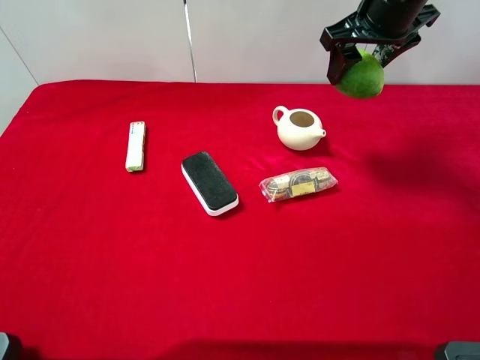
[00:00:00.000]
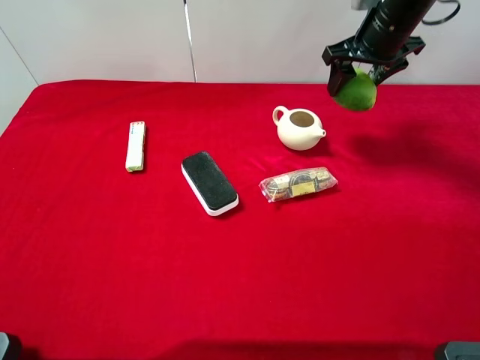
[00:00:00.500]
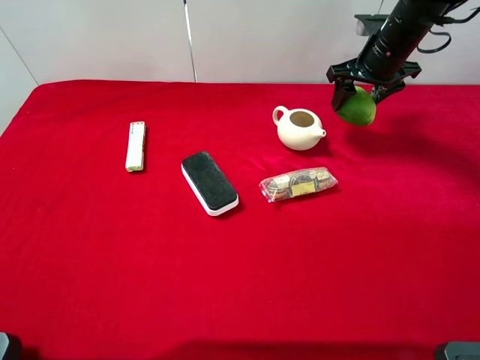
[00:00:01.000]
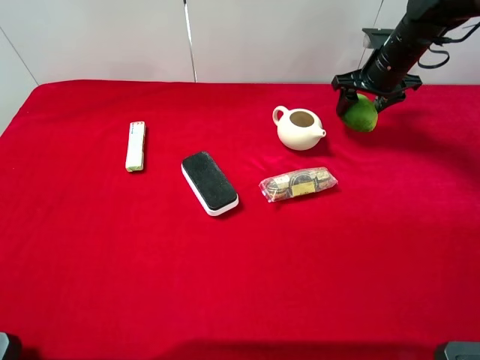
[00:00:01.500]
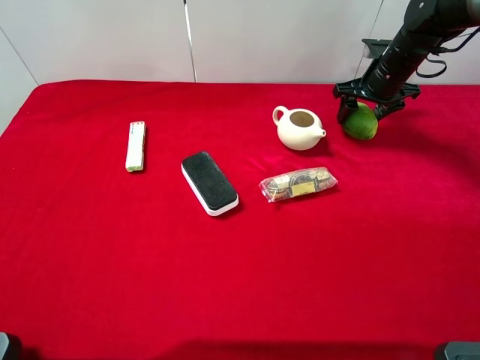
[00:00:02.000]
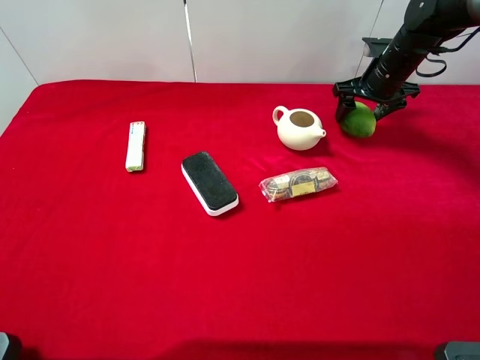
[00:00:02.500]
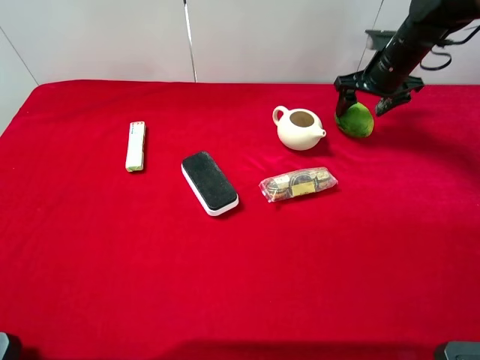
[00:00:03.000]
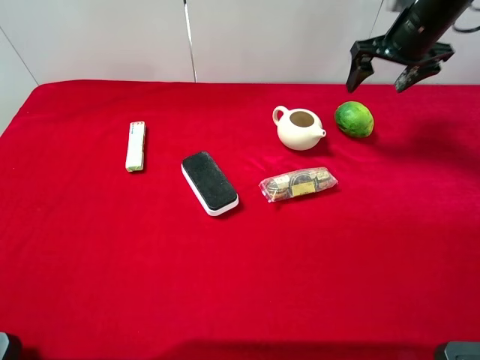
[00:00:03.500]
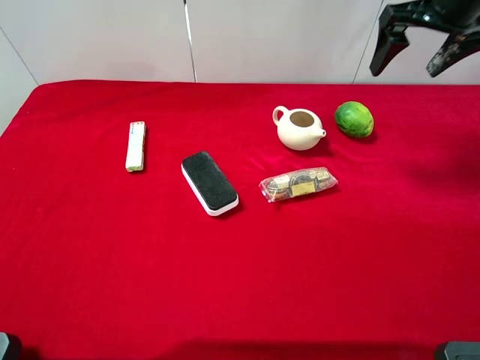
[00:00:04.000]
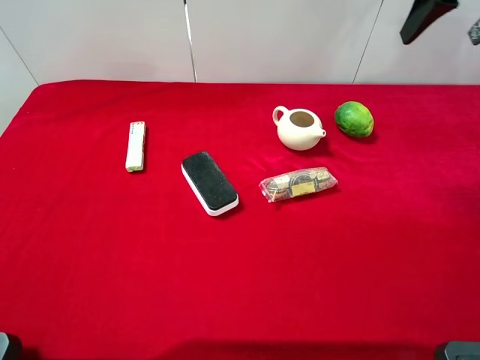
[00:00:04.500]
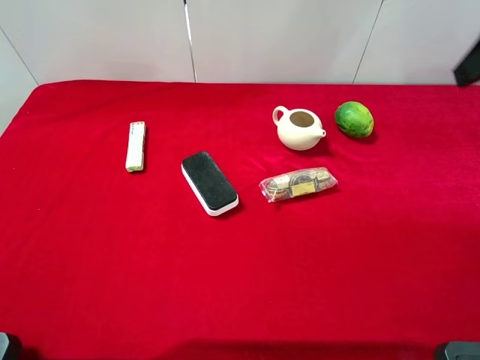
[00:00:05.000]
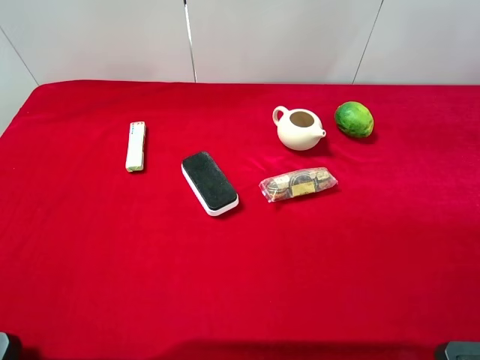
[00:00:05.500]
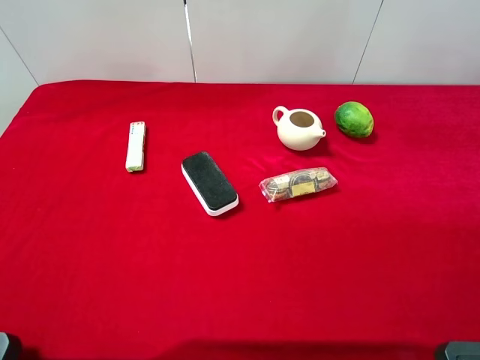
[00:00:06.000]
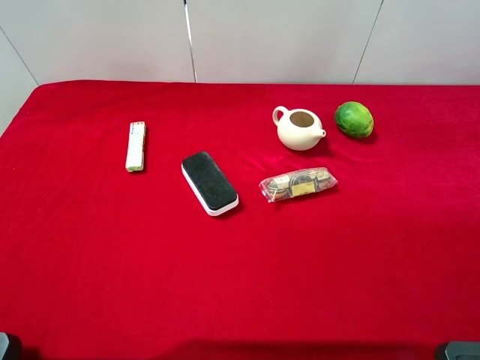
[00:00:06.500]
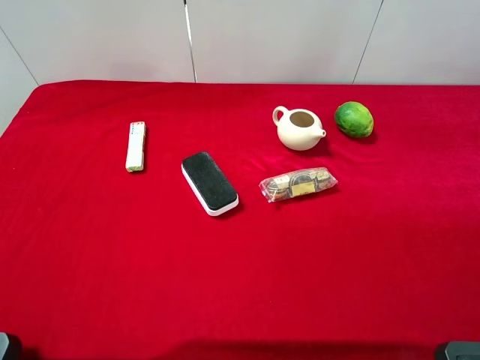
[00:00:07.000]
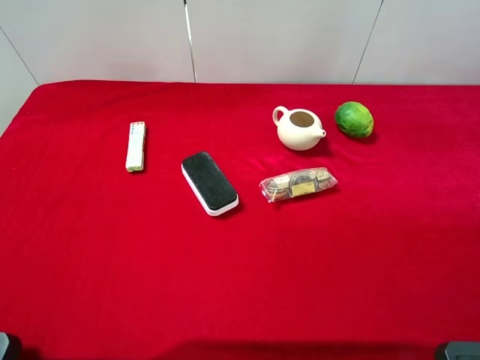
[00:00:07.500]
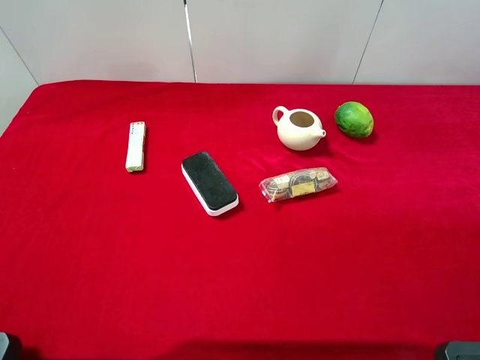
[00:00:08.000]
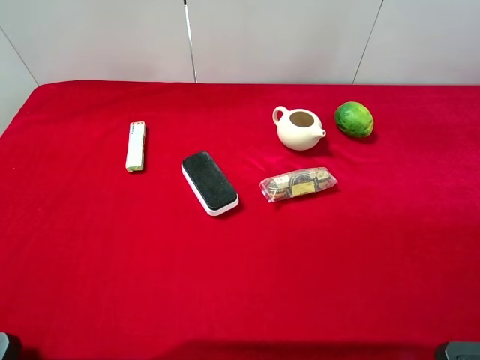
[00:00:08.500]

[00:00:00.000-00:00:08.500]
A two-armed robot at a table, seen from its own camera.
Task of the whole recording: the gripper move the object.
Step, 00:00:00.000 to 00:00:03.500: Place the green lemon on the table with the right gripper.
00:00:00.000 to 00:00:02.000: The right gripper travels downward, forward and to the right by some 20 cm.
00:00:02.000 to 00:00:04.000: The right gripper heads upward and backward, covering about 20 cm, and opens its fingers.
00:00:04.000 to 00:00:06.500: The right gripper shifts roughly 40 cm backward.
00:00:06.500 to 00:00:08.500: Both grippers stay about where they are.

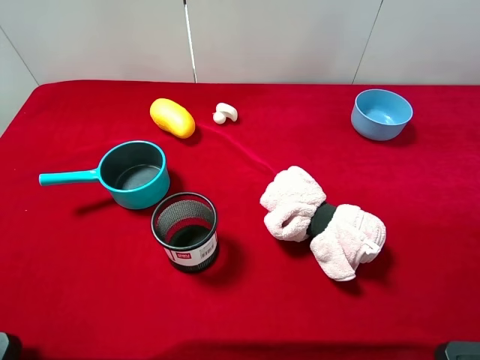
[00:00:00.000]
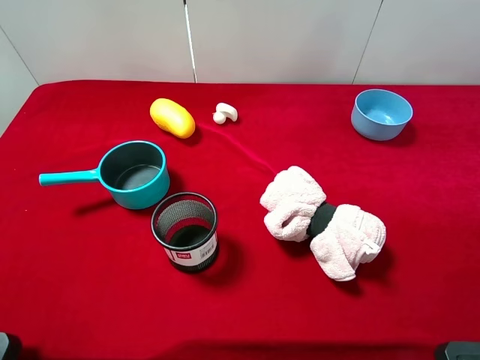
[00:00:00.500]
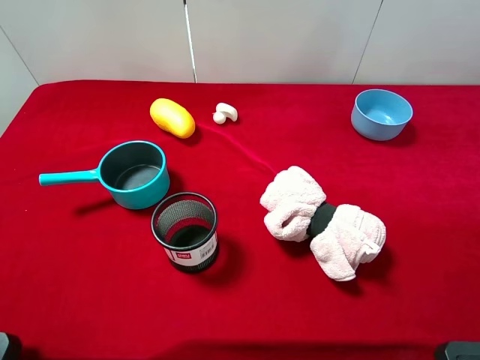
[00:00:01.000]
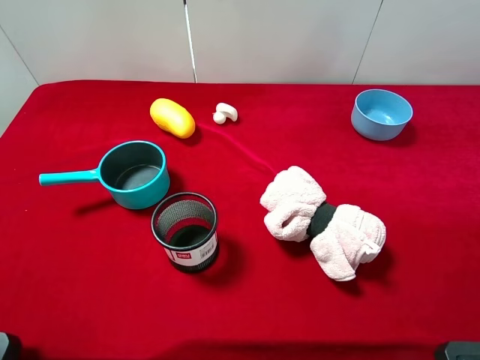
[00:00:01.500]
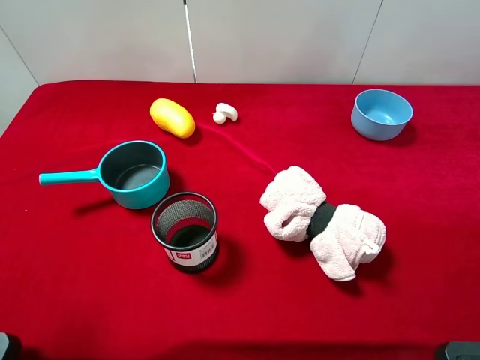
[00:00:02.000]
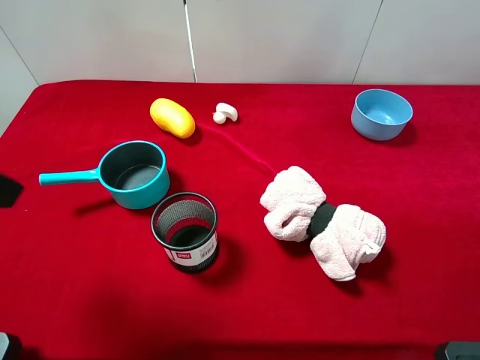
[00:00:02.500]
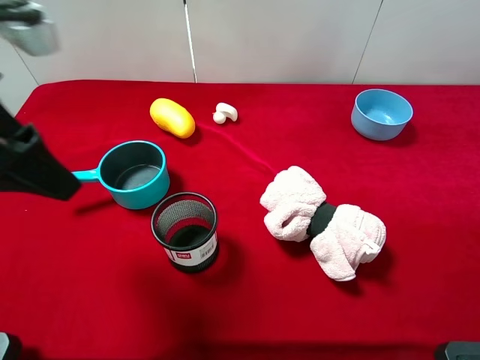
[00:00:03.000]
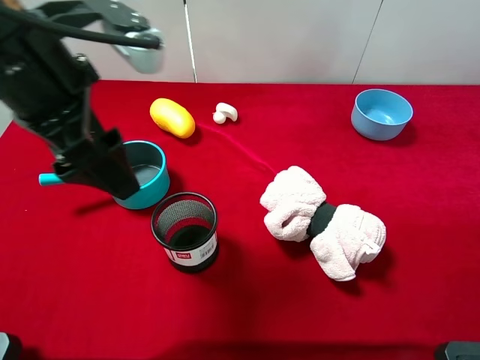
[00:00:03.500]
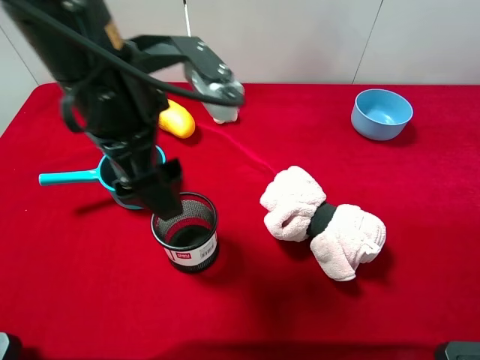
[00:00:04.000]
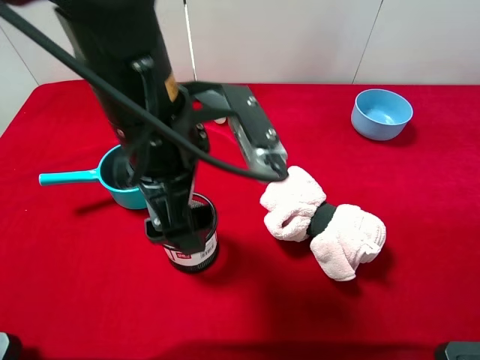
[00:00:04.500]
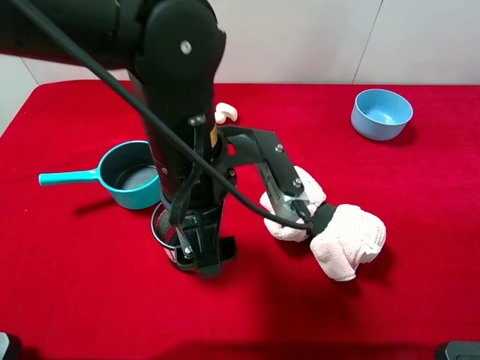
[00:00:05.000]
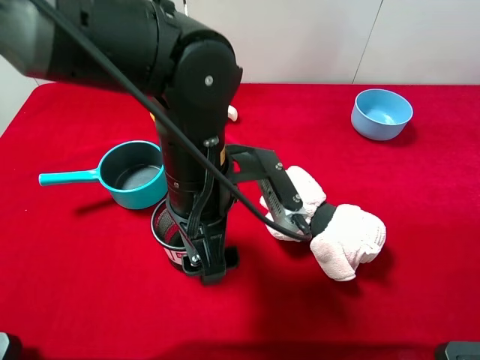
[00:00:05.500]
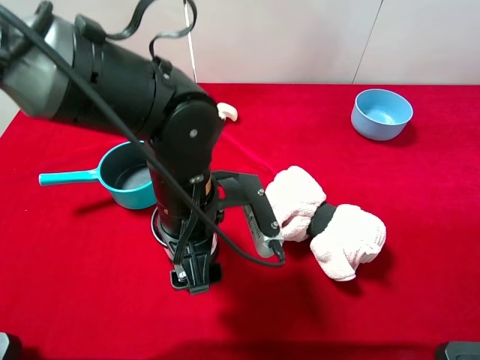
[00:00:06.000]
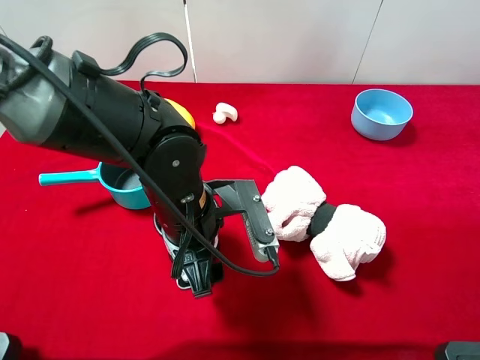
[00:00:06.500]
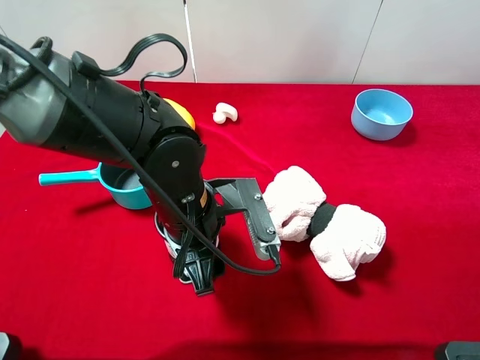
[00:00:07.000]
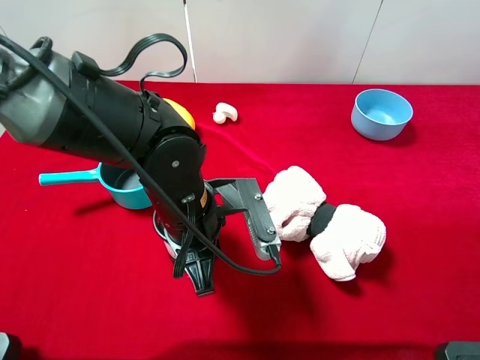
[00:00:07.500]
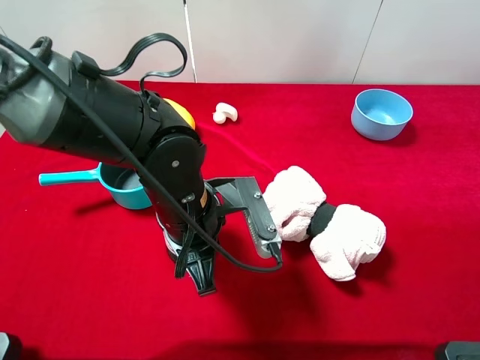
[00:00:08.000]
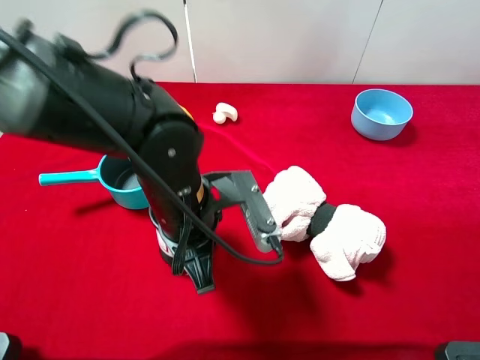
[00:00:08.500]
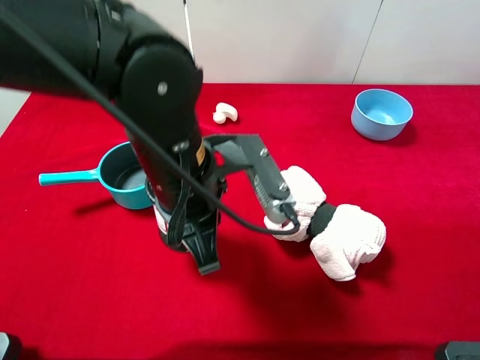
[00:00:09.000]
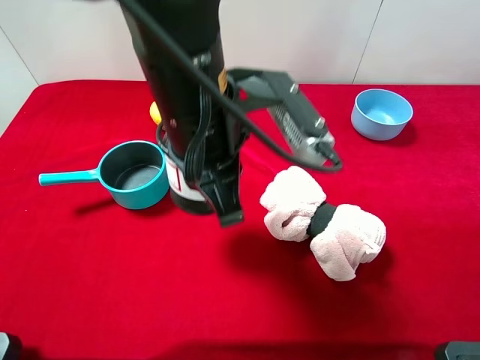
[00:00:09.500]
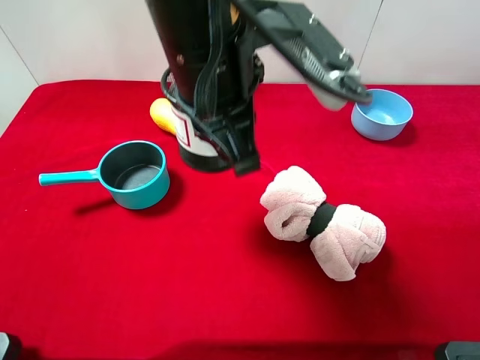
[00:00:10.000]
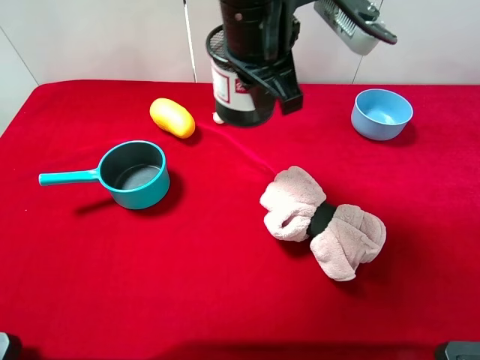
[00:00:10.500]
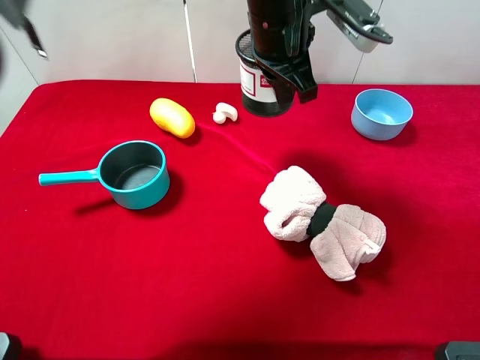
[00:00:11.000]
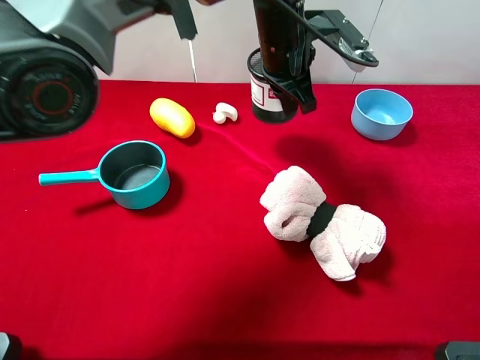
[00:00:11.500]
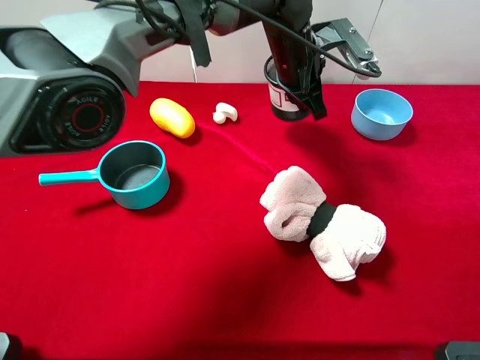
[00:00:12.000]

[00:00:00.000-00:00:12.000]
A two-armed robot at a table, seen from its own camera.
Task of the whole recording: the gripper move the object.
Step, 00:00:00.000 to 00:00:07.500: Grasp the pen container with the left gripper.
00:00:02.000 to 00:00:04.000: The left gripper goes approximately 25 cm to the right and forward.
00:00:04.000 to 00:00:06.000: The left gripper is displaced downward by approximately 10 cm.
00:00:06.000 to 00:00:08.000: The left gripper closes.
00:00:08.000 to 00:00:10.000: The left gripper goes approximately 15 cm upward.
00:00:10.000 to 00:00:12.000: The left gripper goes some 25 cm forward, downward and to the right.

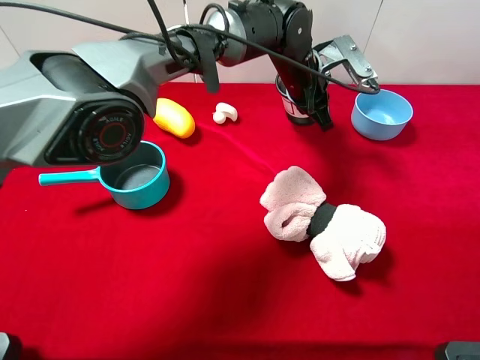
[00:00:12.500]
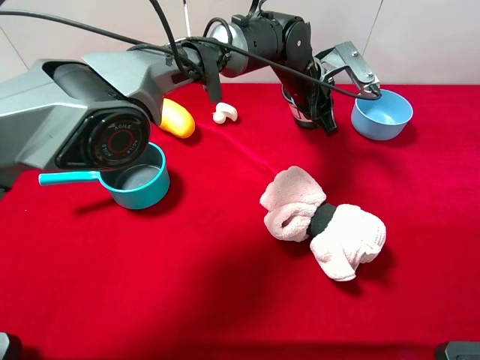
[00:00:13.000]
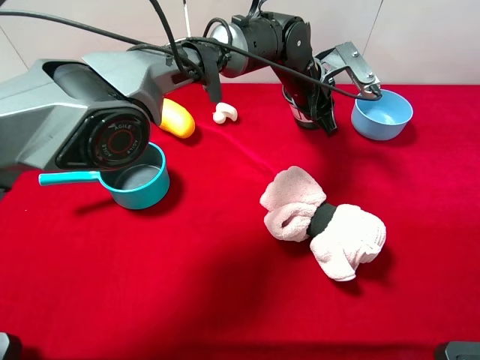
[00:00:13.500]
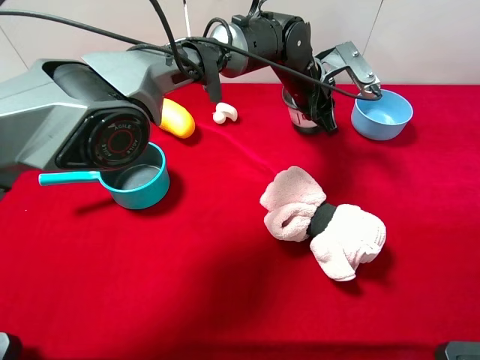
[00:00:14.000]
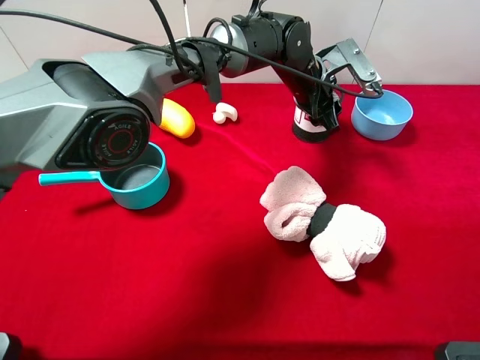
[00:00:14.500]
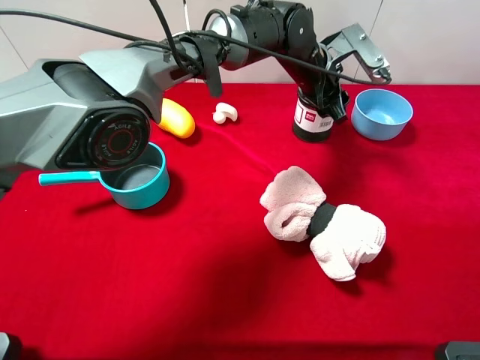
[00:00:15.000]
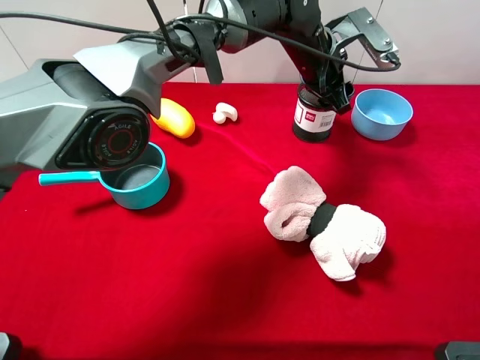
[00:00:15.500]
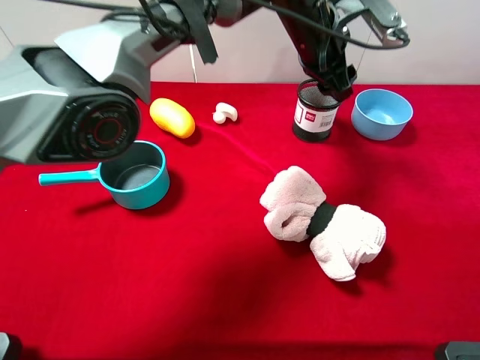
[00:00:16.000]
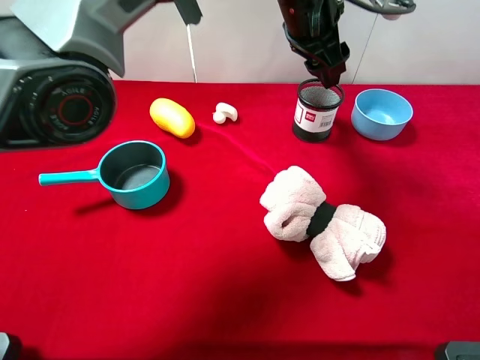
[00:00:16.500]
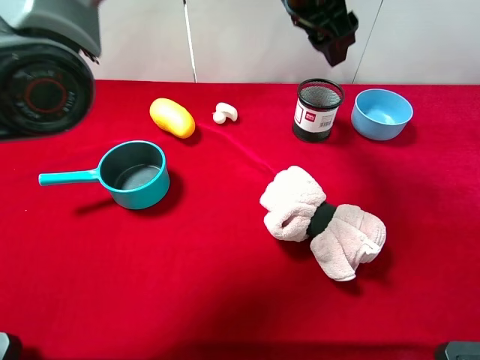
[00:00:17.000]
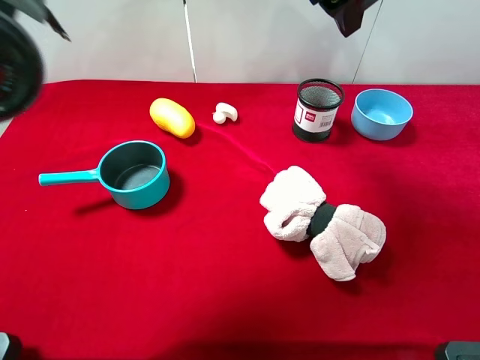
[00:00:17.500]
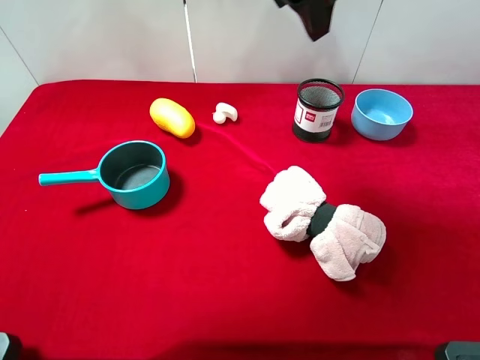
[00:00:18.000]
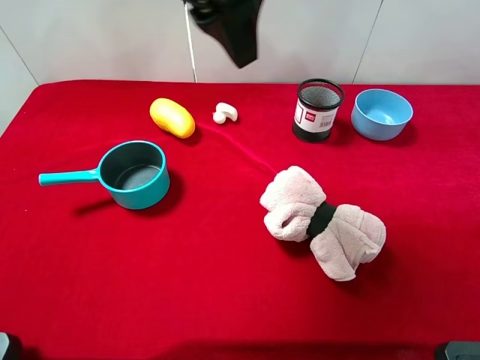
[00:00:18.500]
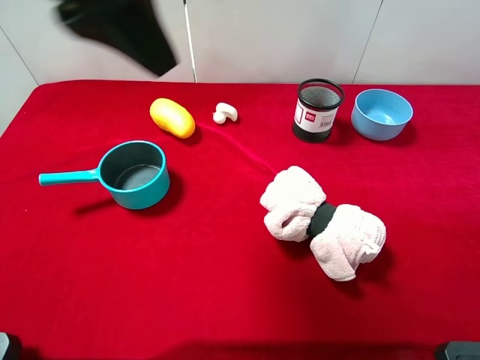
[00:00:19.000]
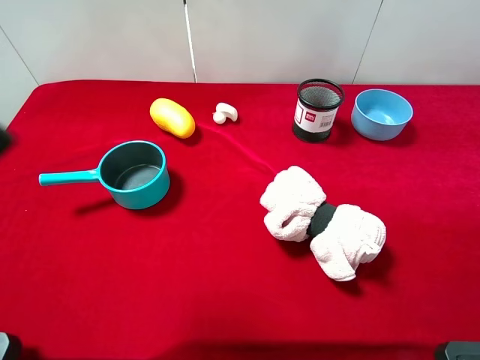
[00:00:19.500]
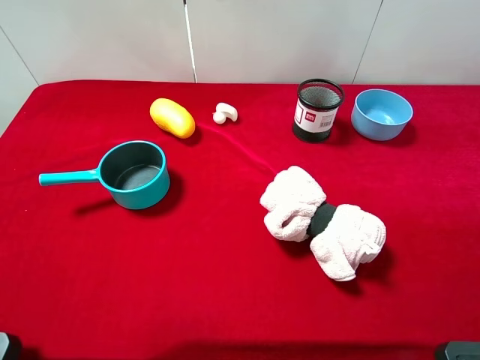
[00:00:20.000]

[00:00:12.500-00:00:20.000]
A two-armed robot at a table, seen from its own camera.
Task of the whole recording: the gripper move the object.
Step, 00:00:12.500 to 00:00:16.000: Place the pen container on the table with the left gripper.
00:00:12.500 to 00:00:14.500: The left gripper opens up.
00:00:14.500 to 00:00:16.500: The left gripper moves upward, some 15 cm.
00:00:16.500 to 00:00:18.000: The left gripper shifts some 15 cm upward, backward and to the left.
